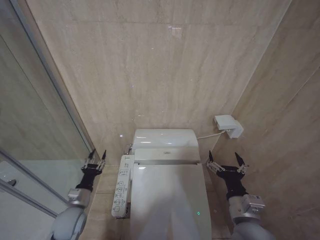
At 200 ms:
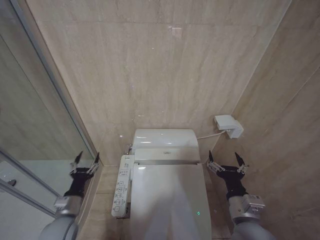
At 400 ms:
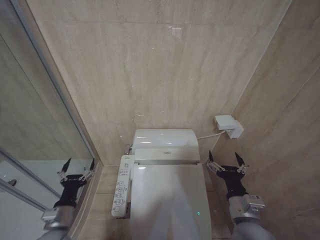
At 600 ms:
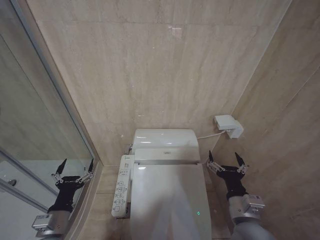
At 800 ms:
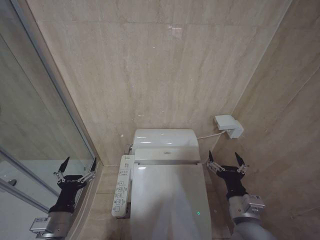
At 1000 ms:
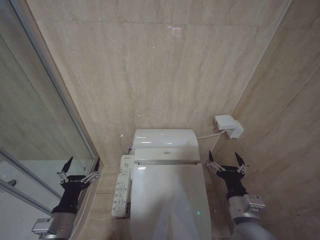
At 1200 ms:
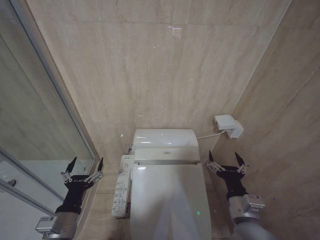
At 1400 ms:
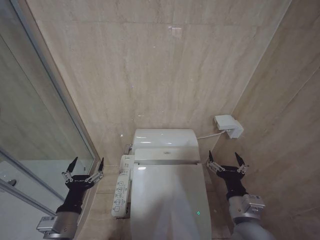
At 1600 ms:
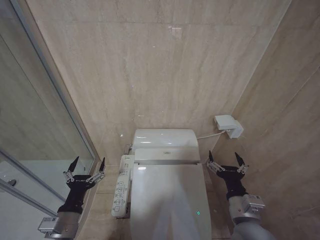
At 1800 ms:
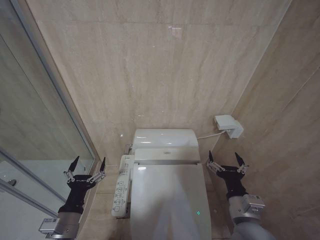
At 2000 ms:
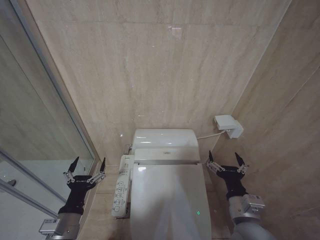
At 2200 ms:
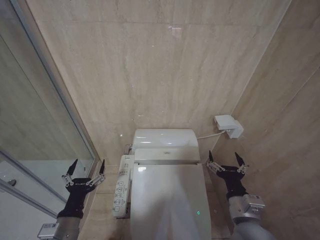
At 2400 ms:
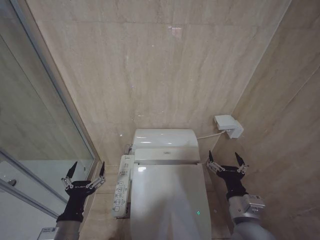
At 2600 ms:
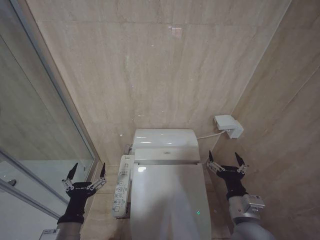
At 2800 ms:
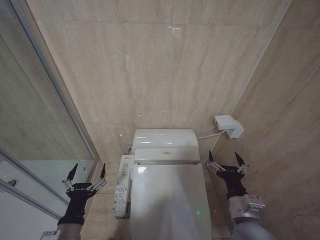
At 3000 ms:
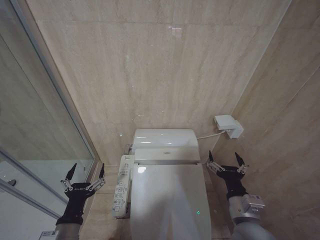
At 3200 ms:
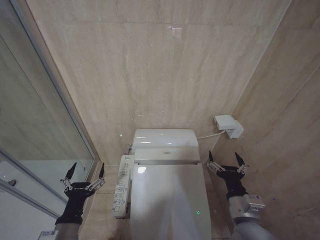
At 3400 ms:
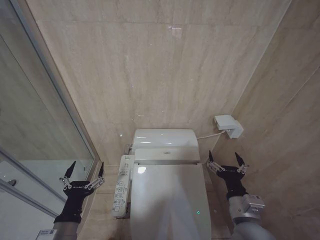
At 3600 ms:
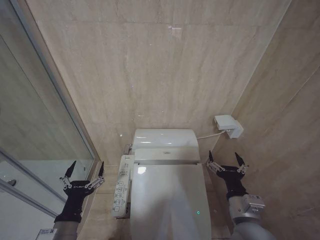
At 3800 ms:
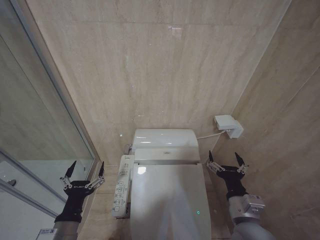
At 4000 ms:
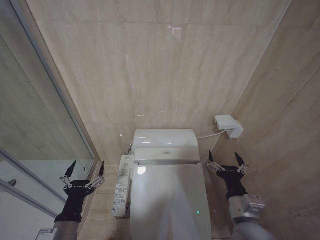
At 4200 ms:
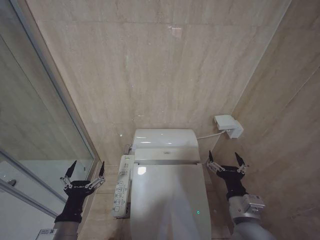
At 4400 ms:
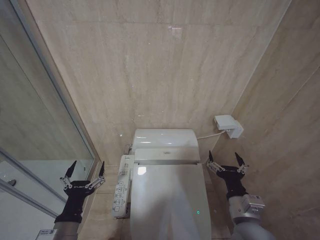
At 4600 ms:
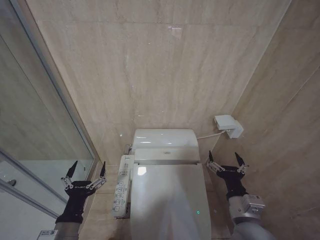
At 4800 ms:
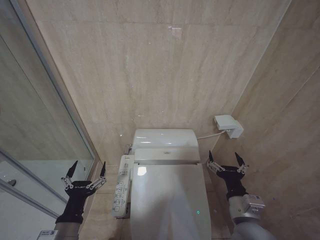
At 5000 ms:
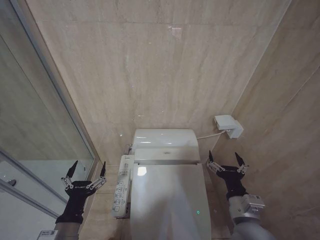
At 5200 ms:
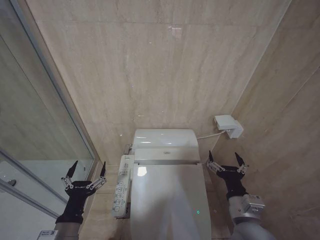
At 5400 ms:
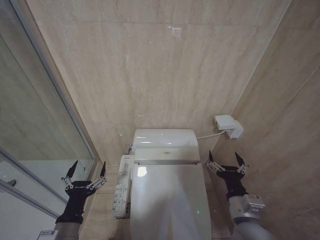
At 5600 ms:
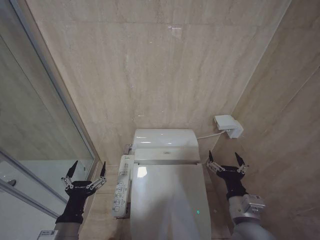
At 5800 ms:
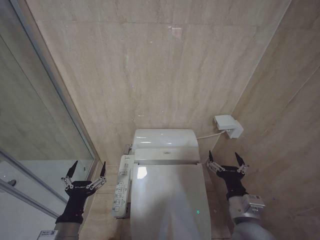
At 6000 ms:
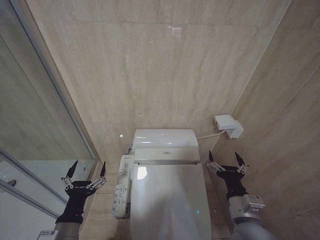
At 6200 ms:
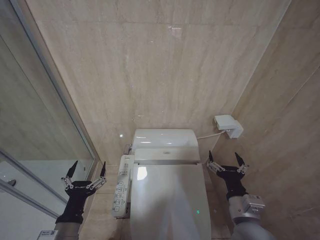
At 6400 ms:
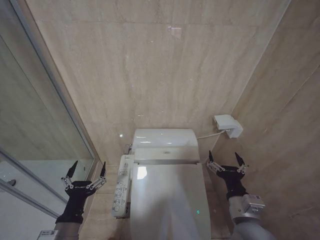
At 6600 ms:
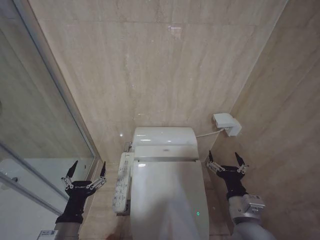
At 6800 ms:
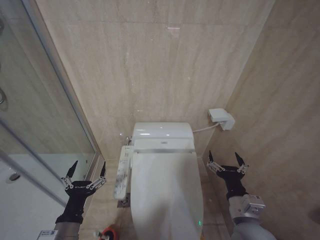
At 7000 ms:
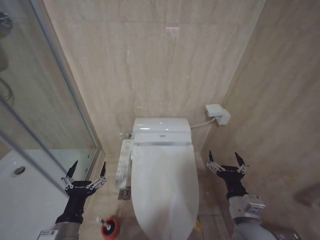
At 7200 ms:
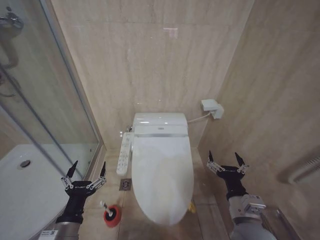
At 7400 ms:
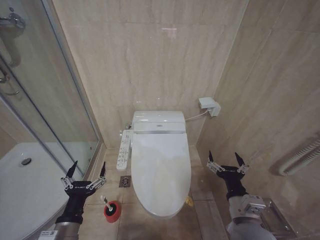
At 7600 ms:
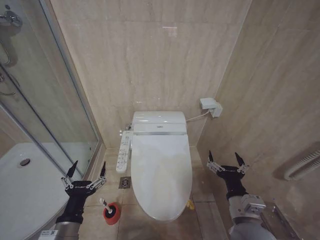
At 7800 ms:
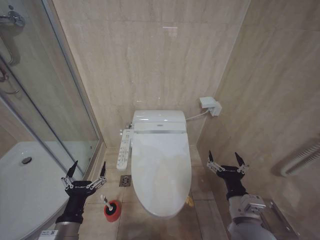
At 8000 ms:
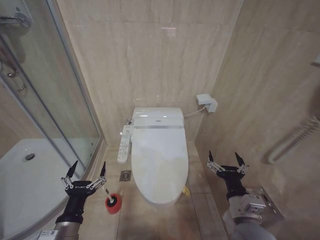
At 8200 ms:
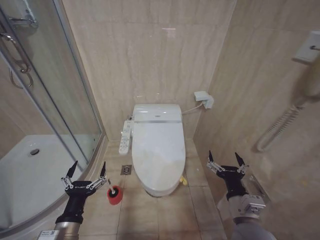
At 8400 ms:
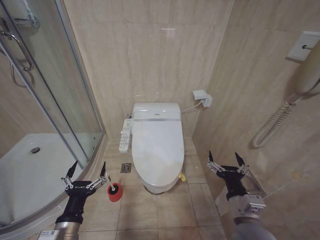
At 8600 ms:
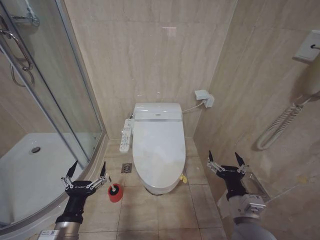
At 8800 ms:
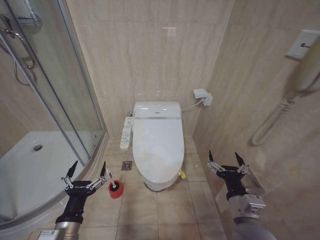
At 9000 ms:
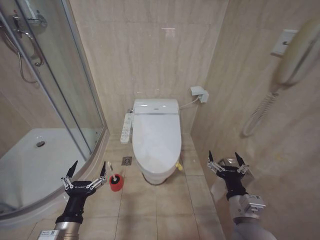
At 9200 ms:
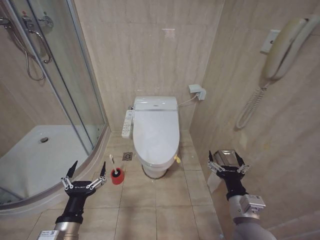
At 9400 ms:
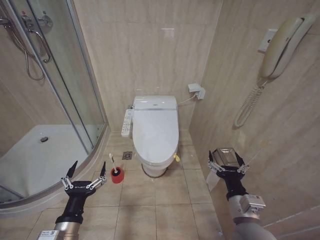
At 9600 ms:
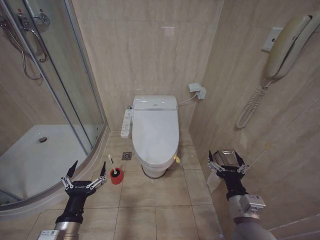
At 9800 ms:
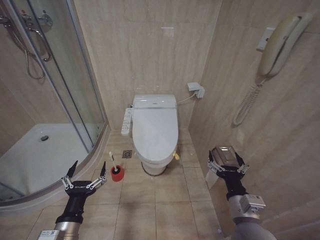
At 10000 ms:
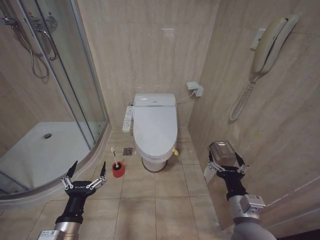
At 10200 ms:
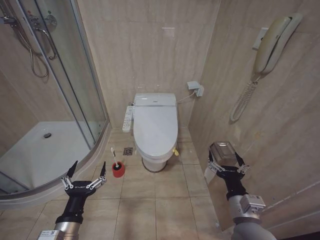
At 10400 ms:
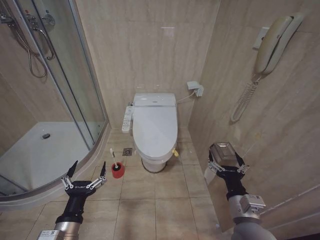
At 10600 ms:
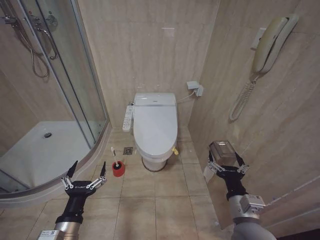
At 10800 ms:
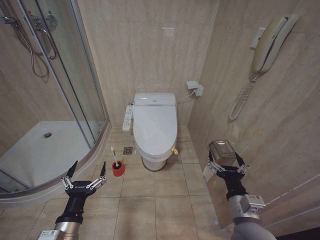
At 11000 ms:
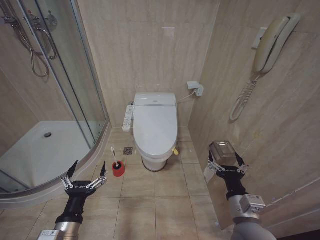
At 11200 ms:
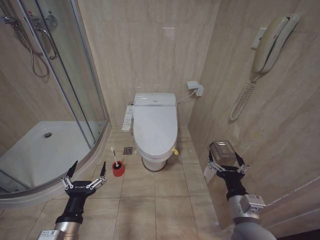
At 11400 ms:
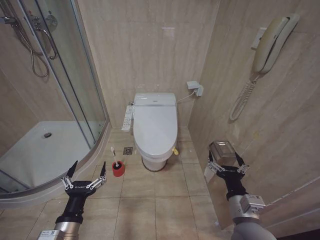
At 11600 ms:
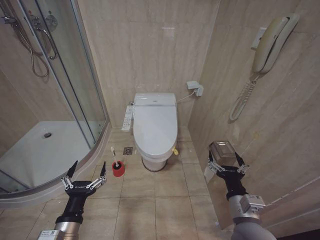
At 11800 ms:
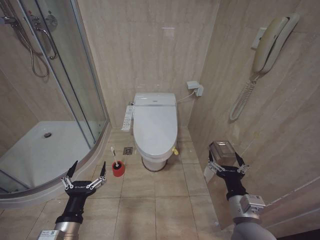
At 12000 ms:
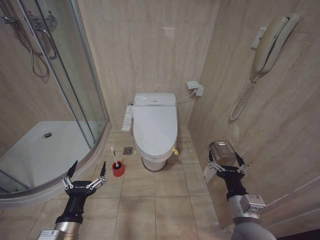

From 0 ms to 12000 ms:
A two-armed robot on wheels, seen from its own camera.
Task of the whole recording: Open the toilet lid, clean the toilet bowl with a toilet brush, close the toilet lid, and flush.
From 0 ms to 1600 ms: The left gripper travels backward and upward by roughly 15 cm, and opens its fingers.
From 1600 ms to 3000 ms: The grippers make only small movements.
From 3000 ms to 7600 ms: Both grippers stay put.
From 9000 ms to 12000 ms: The two grippers keep their place.

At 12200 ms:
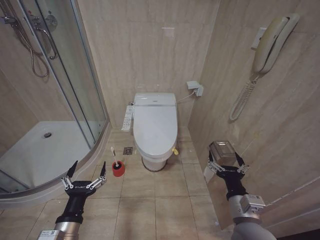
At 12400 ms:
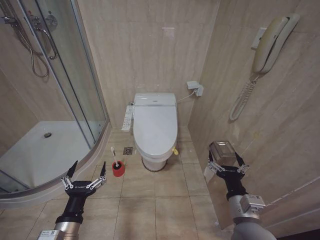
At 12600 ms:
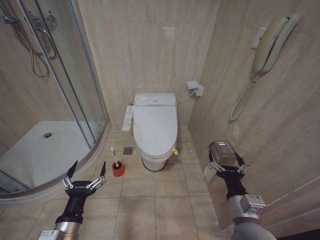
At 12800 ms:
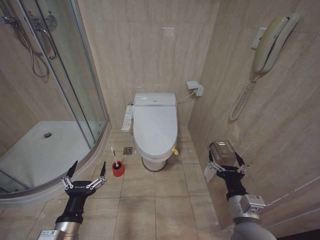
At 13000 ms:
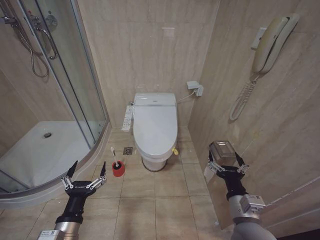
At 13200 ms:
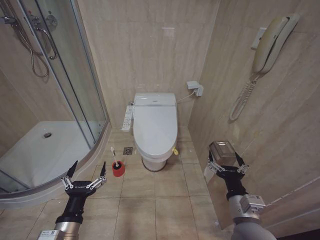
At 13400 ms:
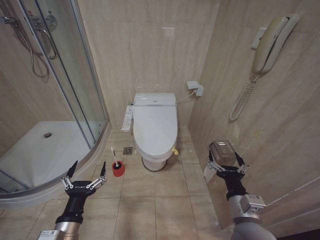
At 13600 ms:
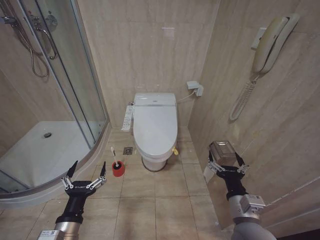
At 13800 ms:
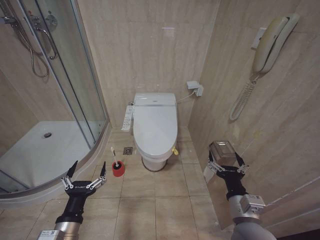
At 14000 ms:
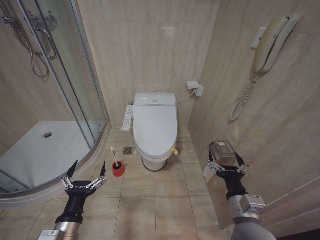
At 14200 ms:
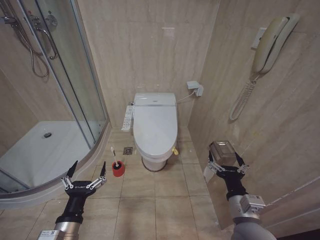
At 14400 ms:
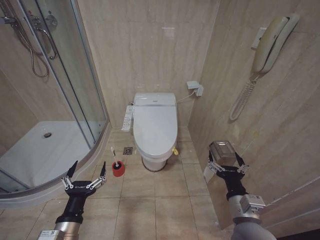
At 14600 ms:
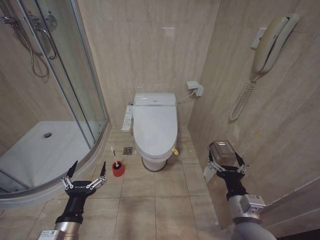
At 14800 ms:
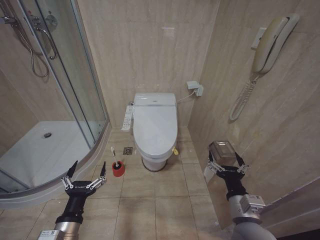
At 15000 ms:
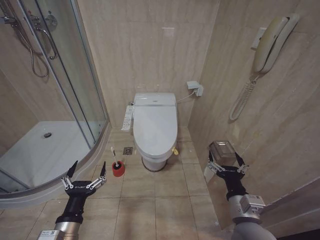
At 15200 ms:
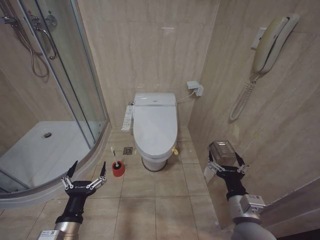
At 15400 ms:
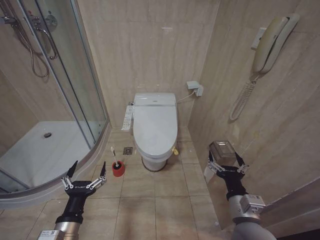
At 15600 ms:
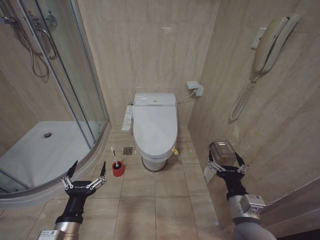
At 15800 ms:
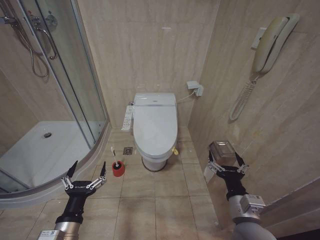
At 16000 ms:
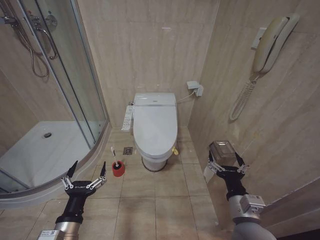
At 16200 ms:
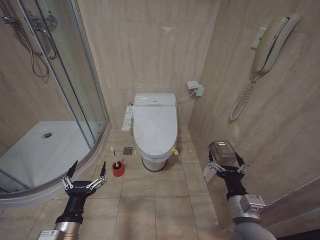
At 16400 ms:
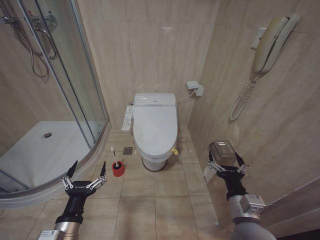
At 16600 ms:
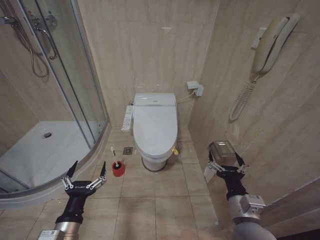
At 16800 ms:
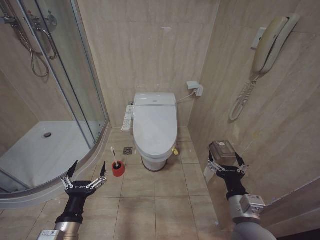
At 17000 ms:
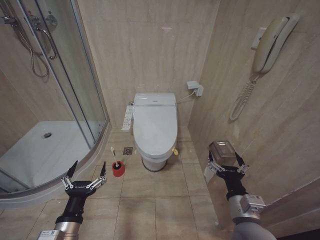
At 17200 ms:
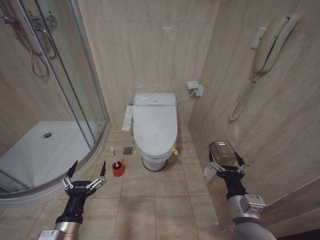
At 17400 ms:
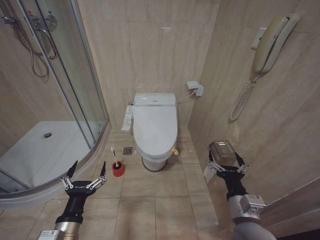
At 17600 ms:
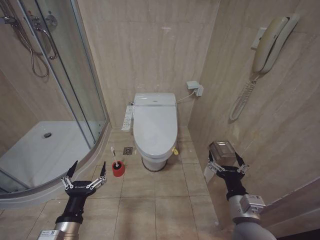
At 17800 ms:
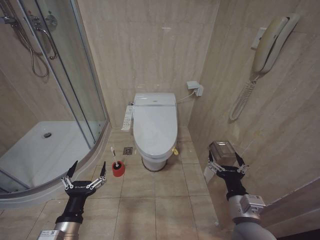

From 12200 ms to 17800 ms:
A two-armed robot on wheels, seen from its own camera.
Task of the whole recording: Open the toilet lid, clean the toilet bowl with a toilet brush, close the toilet lid, and flush.
From 12200 ms to 17800 ms: The two grippers keep their place.
